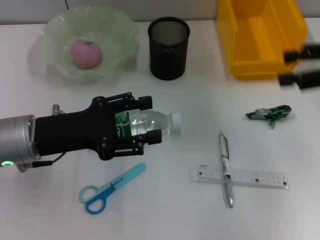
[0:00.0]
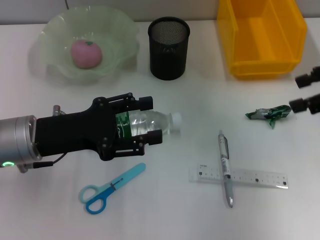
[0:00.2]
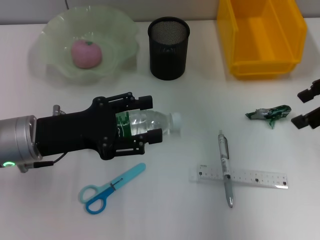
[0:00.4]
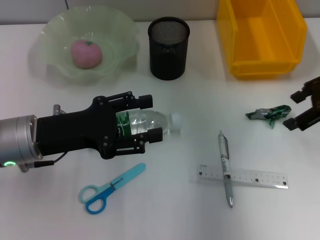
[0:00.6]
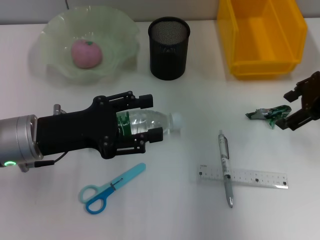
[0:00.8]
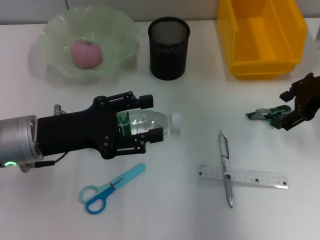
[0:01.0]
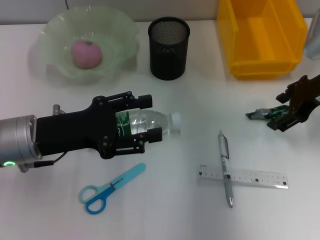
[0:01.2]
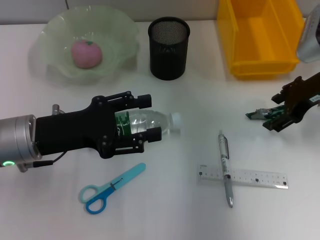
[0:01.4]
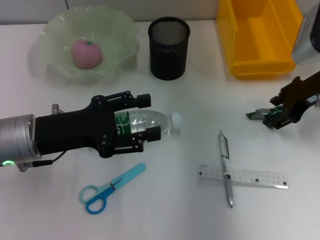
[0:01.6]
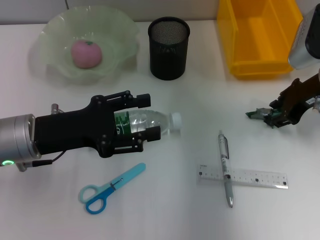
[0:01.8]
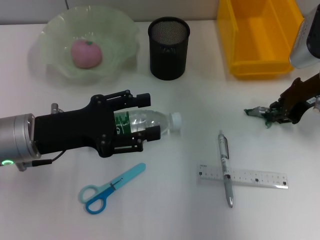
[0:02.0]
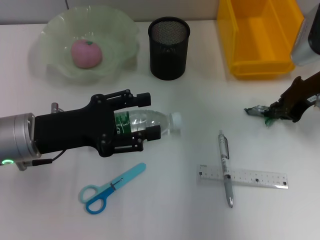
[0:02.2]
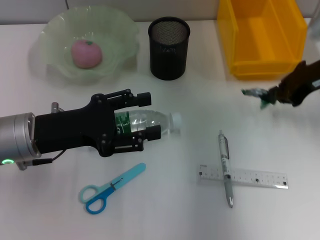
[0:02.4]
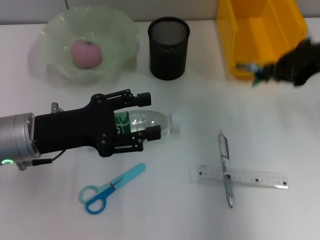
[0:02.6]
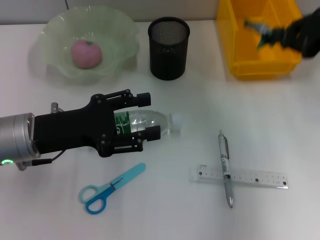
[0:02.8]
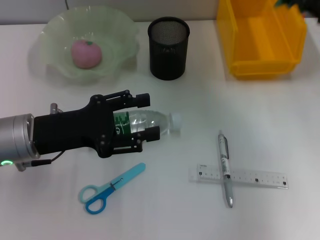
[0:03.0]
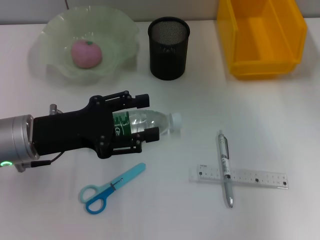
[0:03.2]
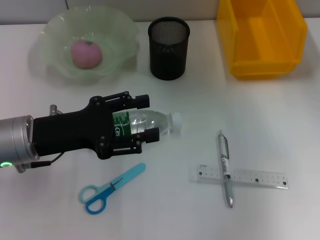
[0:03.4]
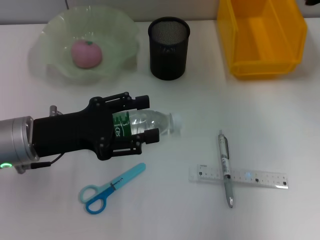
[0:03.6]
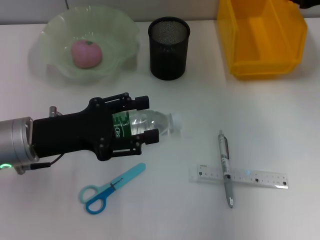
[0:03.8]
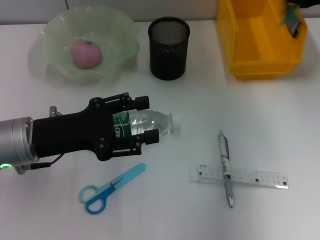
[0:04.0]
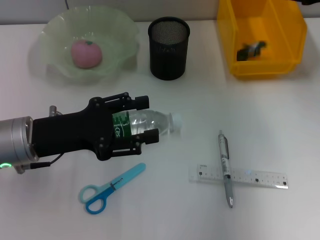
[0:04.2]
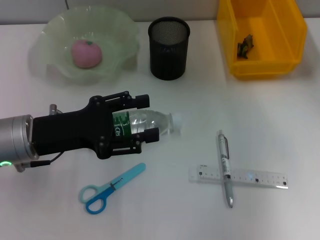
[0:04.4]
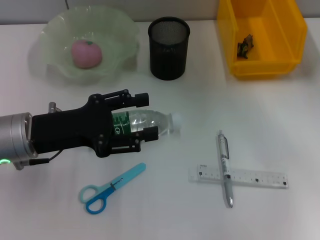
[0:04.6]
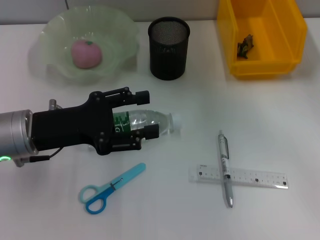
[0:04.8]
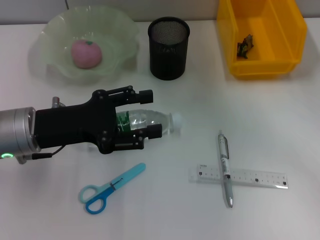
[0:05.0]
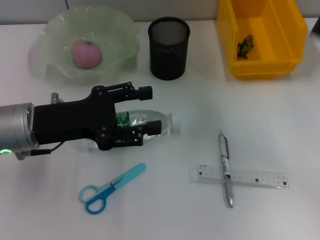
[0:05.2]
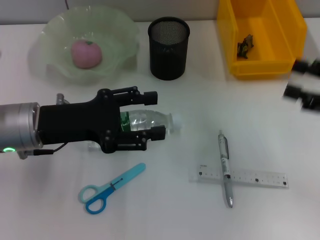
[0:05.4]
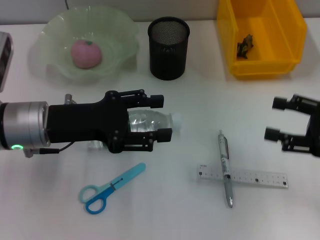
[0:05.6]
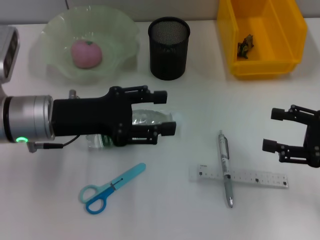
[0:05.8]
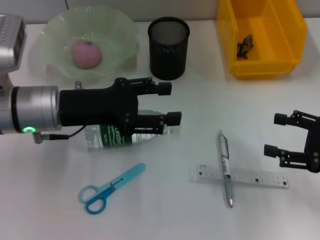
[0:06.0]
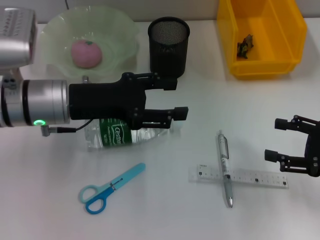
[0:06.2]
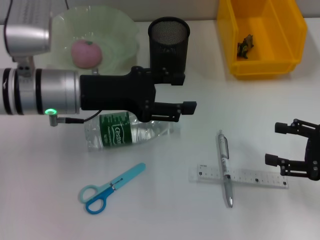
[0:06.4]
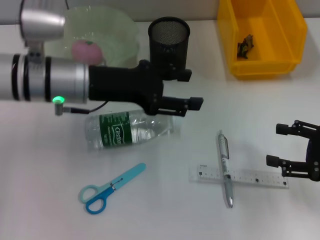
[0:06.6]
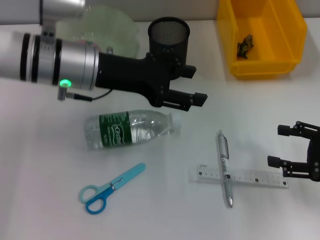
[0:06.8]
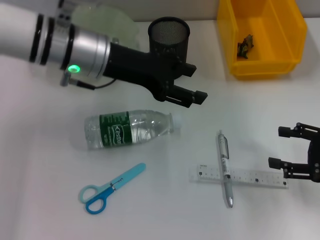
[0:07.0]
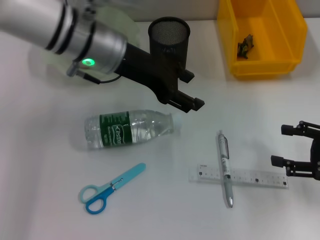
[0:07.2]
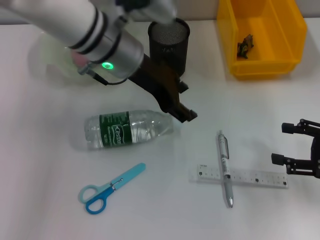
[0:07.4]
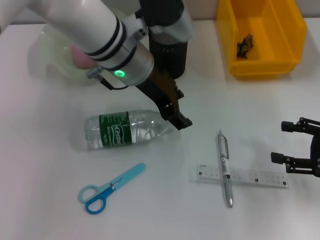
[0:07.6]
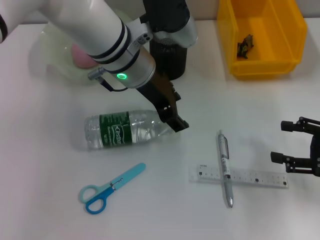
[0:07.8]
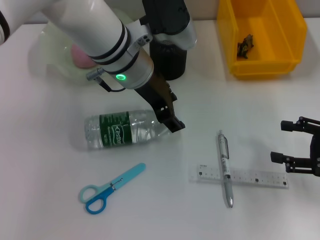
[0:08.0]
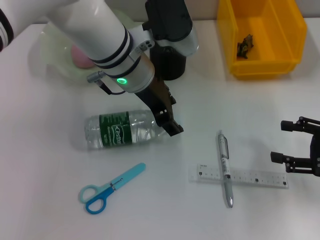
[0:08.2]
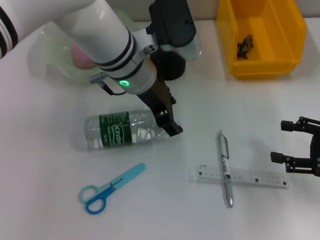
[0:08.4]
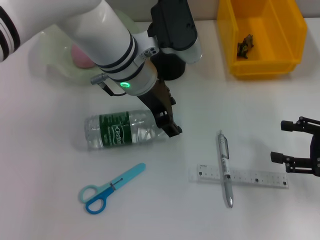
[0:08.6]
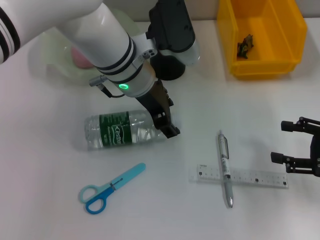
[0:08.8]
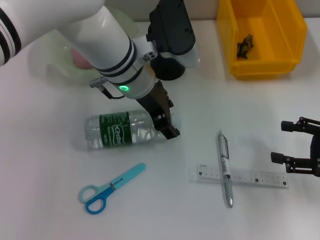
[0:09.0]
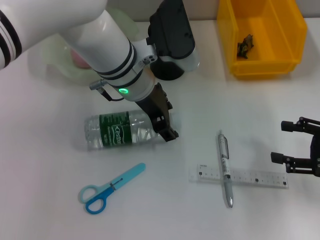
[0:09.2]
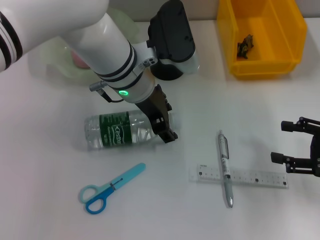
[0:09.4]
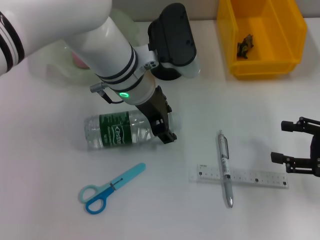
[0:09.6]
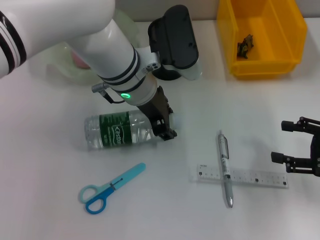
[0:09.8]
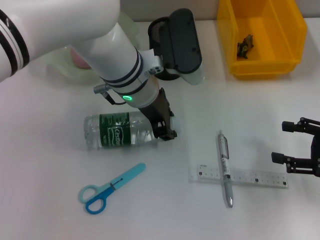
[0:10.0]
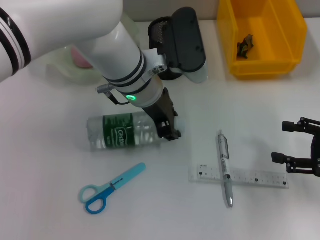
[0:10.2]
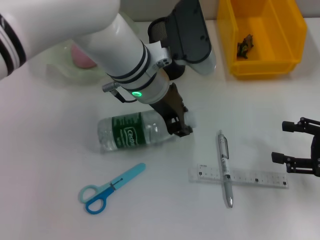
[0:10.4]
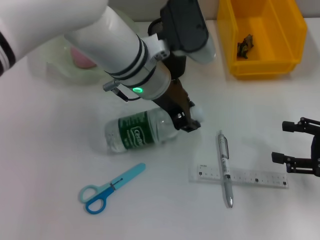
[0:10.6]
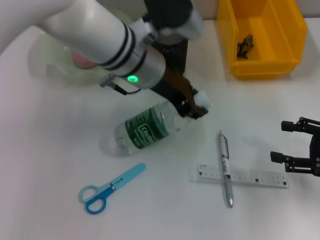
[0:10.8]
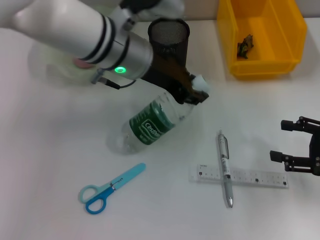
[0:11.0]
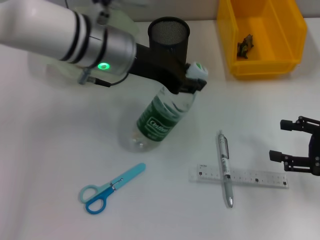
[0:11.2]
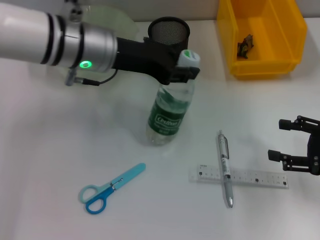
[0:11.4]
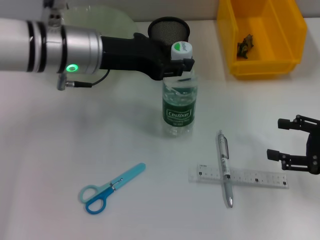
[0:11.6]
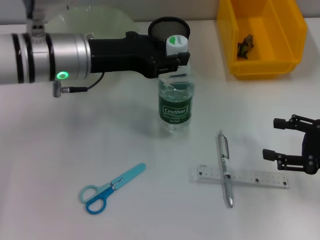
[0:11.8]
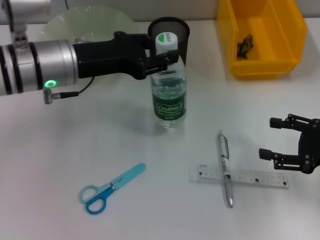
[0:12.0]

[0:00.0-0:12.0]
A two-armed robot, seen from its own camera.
Step, 0:00.0 to 0:02.0: Grab the plastic with the right hand.
Step, 0:02.2 to 0:04.2: Place the plastic into the trash can with the right hand.
Step, 0:04.4 to 0:10.0: Grab the water bottle with the left hand.
0:00.0 to 0:01.6: The right gripper shifts about 10 cm downward, to the left and forward.
0:01.6 to 0:03.0: The right gripper goes approximately 10 cm upward and to the right, and closes.
0:03.0 to 0:04.4: The right gripper moves forward, roughly 5 cm, and opens its fingers.
0:04.4 to 0:06.0: The left gripper shifts by about 5 cm; the right gripper goes approximately 20 cm backward and downward, and opens its fingers.
0:06.0 to 0:07.6: The left gripper moves to the right and forward, about 15 cm.
0:07.6 to 0:09.0: The grippers make only small movements.
0:09.0 to 0:10.4: The left gripper closes.
0:10.4 to 0:12.0: The left gripper is displaced to the left by approximately 15 cm.

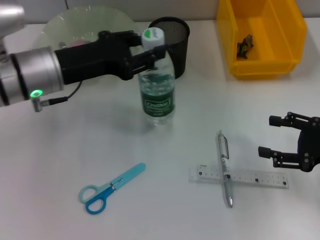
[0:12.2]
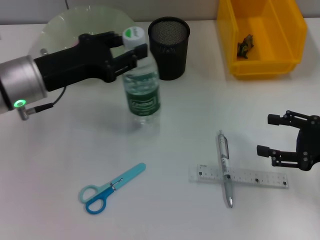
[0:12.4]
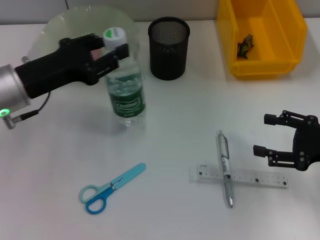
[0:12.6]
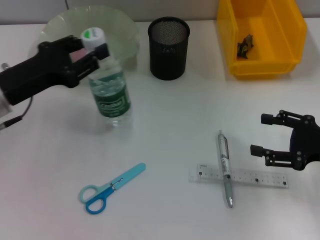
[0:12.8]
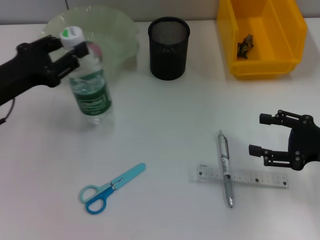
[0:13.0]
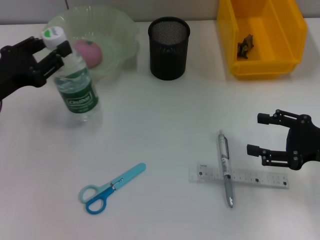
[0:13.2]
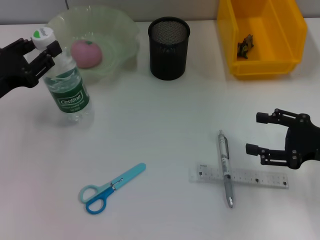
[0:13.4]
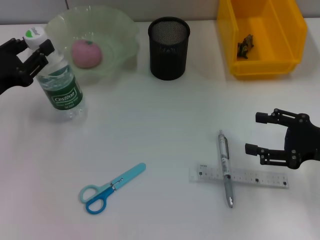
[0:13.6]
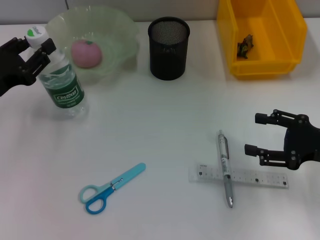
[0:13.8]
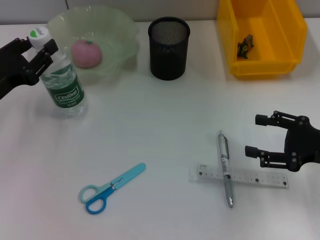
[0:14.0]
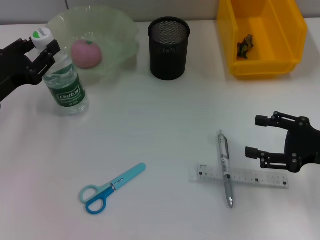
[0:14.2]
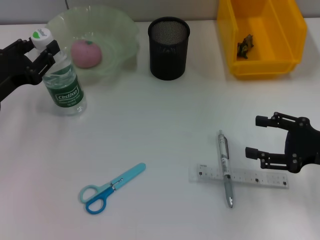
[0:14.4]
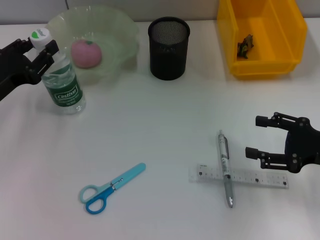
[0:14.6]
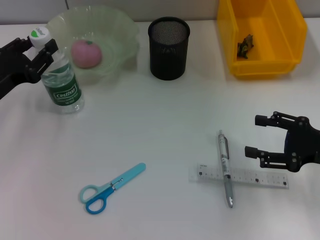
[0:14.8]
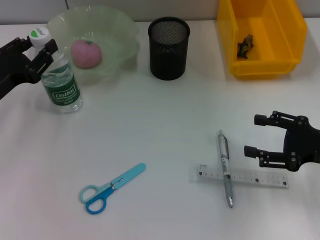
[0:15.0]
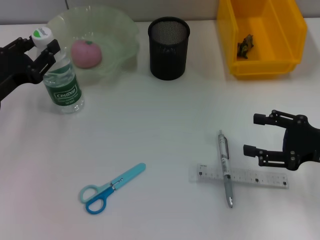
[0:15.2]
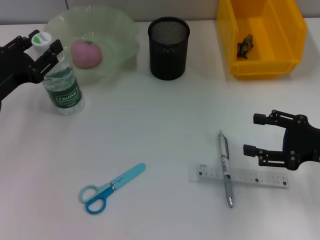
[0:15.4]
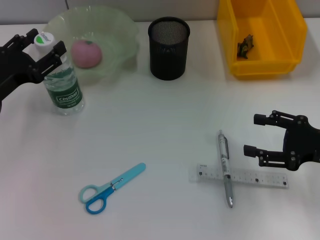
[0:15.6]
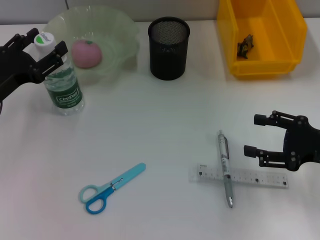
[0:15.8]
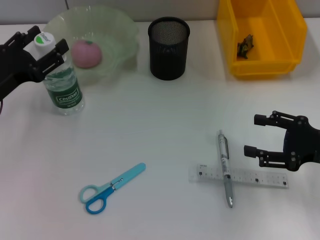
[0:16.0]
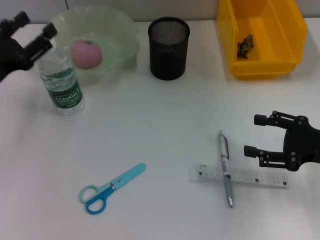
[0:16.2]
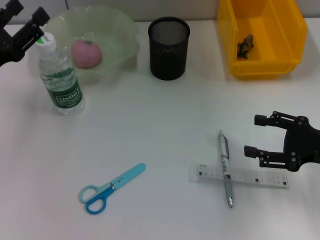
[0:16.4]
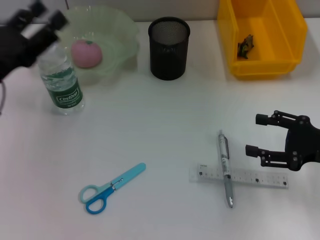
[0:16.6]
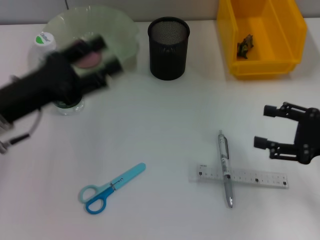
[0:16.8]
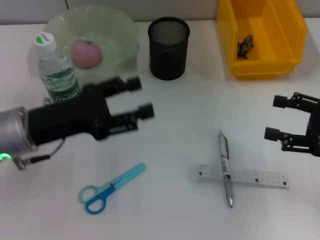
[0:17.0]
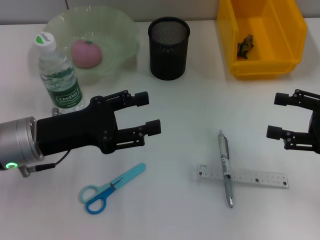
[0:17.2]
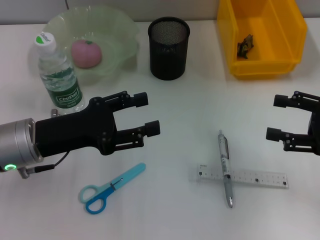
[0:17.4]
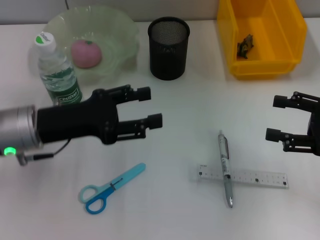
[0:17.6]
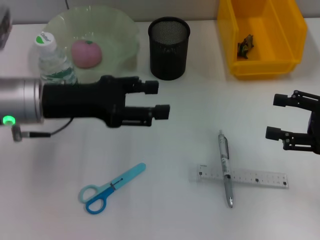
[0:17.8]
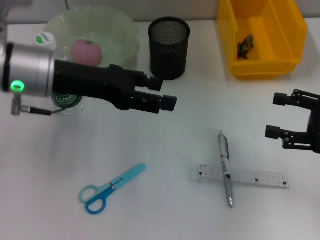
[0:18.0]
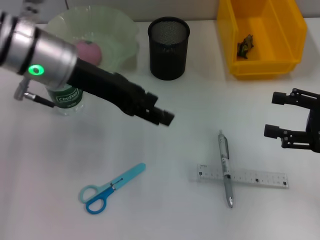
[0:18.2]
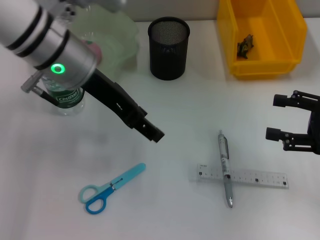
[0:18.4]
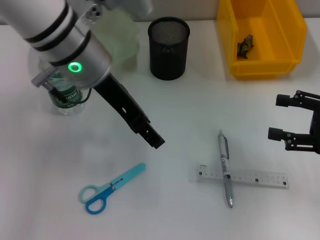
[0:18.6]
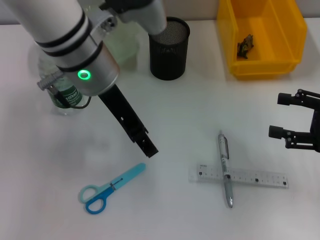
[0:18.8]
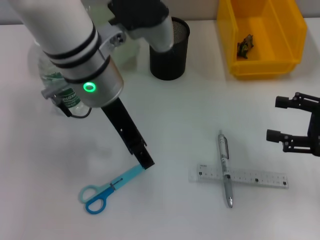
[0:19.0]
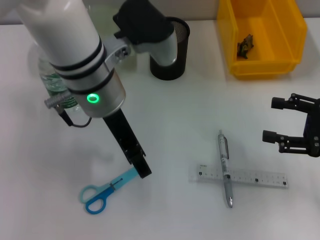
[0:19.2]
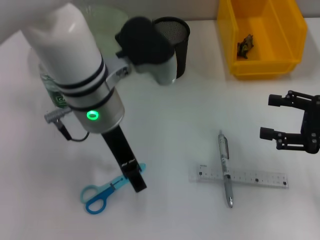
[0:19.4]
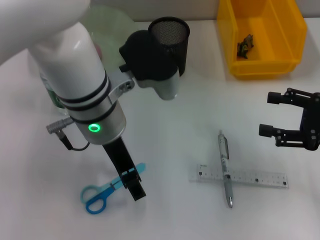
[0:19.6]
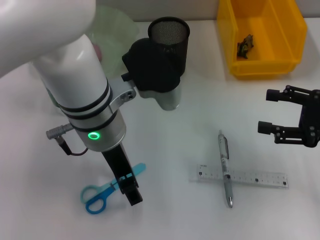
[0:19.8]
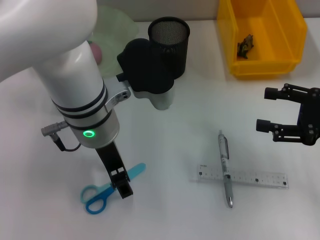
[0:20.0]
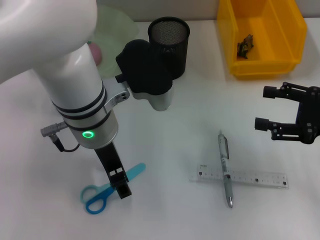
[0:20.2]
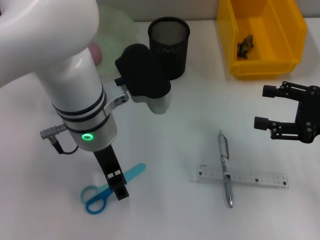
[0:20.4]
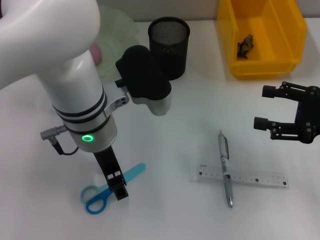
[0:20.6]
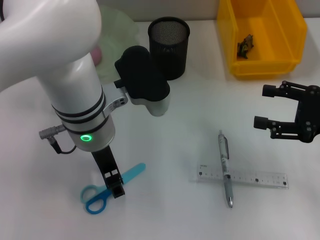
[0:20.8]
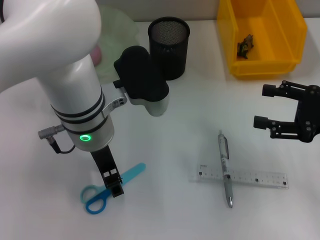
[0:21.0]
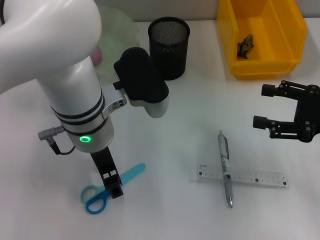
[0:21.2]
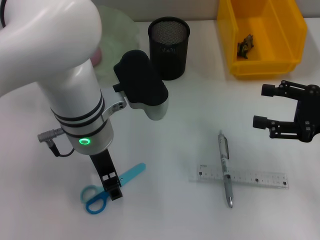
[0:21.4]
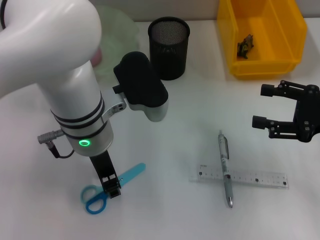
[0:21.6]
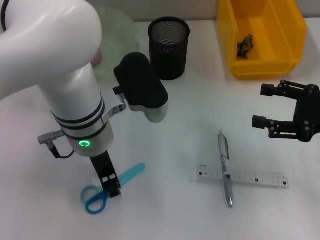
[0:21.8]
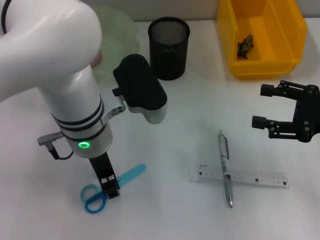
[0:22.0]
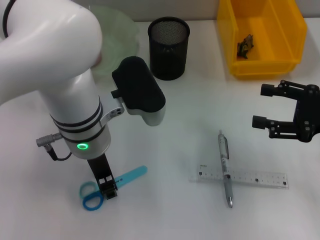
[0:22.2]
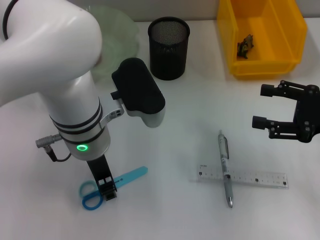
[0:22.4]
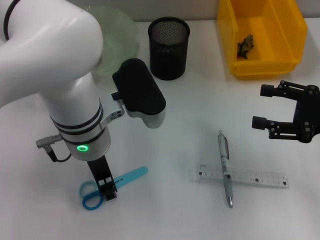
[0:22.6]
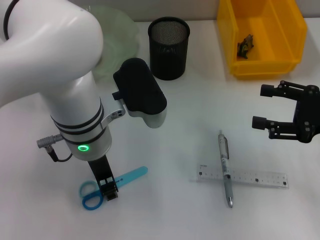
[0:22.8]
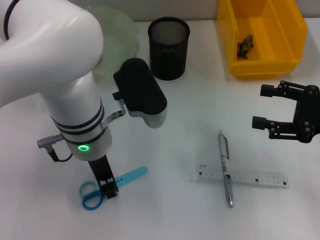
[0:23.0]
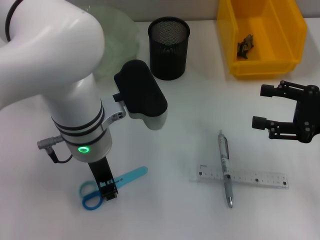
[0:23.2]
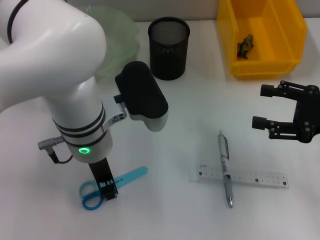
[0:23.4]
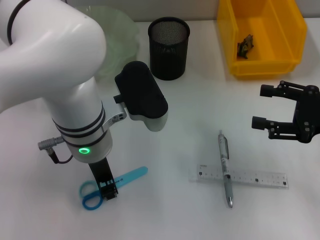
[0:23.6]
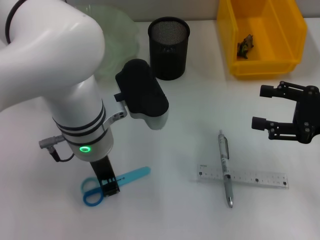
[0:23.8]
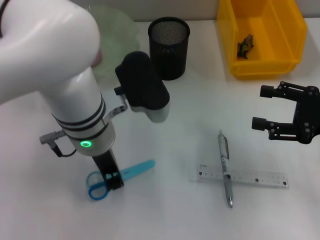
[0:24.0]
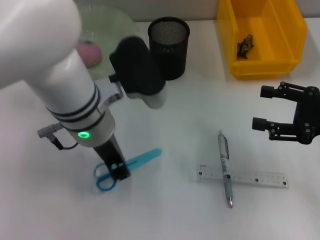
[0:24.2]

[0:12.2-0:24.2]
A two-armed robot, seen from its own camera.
Step, 0:12.2 to 0:15.6: Place the water bottle on the table with the left hand.
Step, 0:15.8 to 0:23.6: Grab the blue scissors with the left hand.
0:12.2 to 0:13.8: The left gripper heads to the left and downward, covering about 10 cm.
0:13.8 to 0:15.2: The grippers stay close to where they were, moving slightly.
0:15.2 to 0:16.6: The left gripper opens.
0:16.6 to 0:18.2: The left gripper shifts about 15 cm to the right, upward and forward.
0:18.2 to 0:19.8: The left gripper shifts about 10 cm to the right.
0:19.8 to 0:21.2: The grippers move only a little.
0:21.2 to 0:22.6: The two grippers keep their place.
